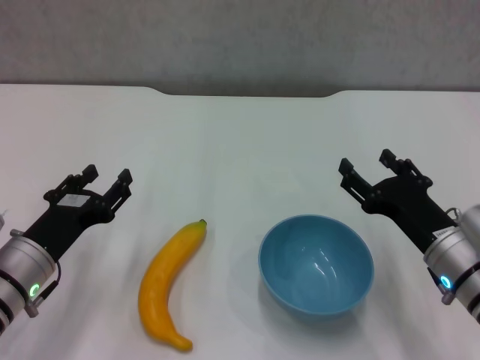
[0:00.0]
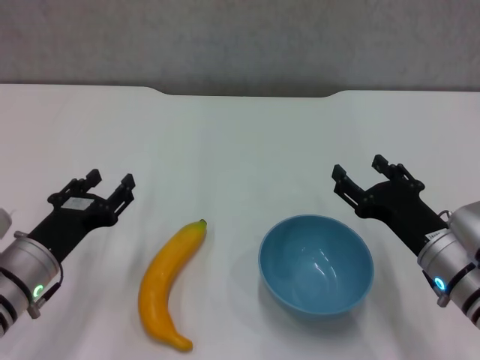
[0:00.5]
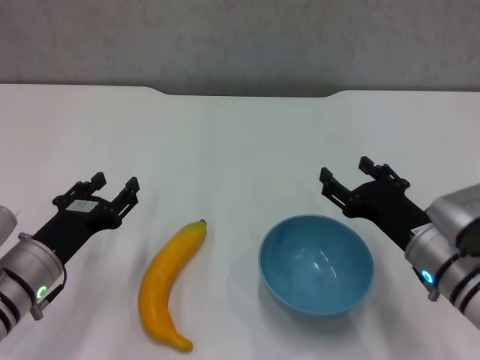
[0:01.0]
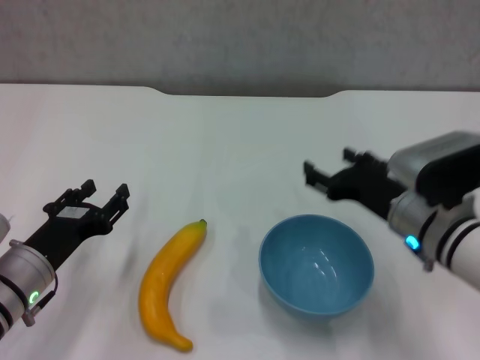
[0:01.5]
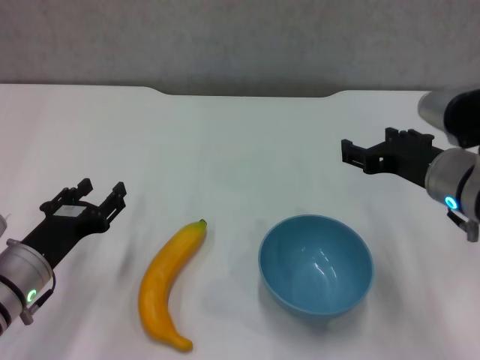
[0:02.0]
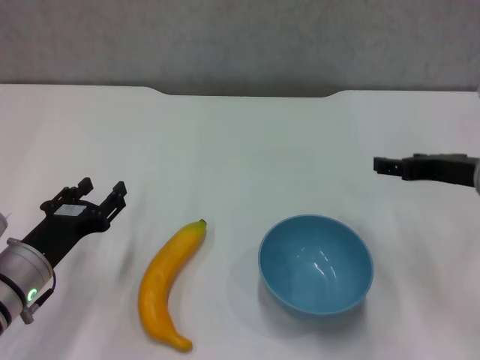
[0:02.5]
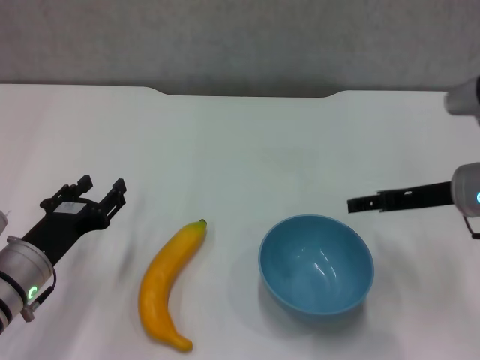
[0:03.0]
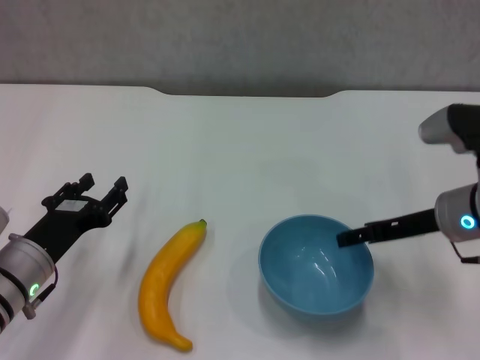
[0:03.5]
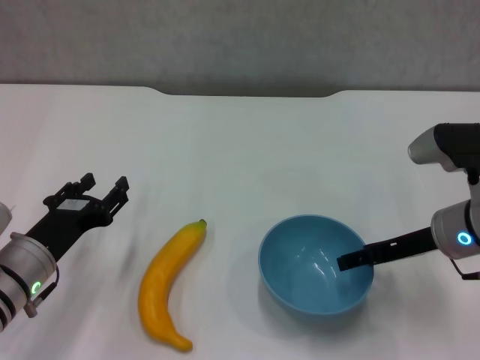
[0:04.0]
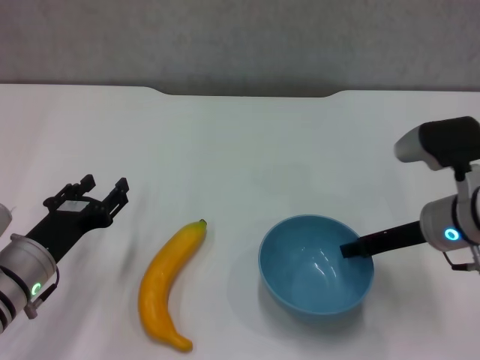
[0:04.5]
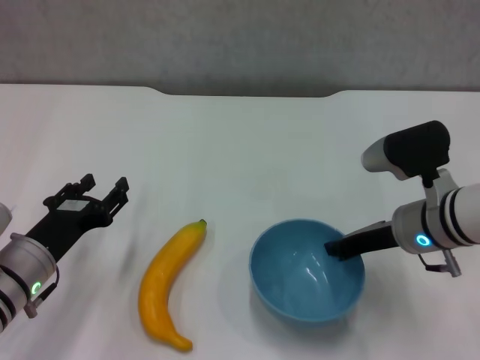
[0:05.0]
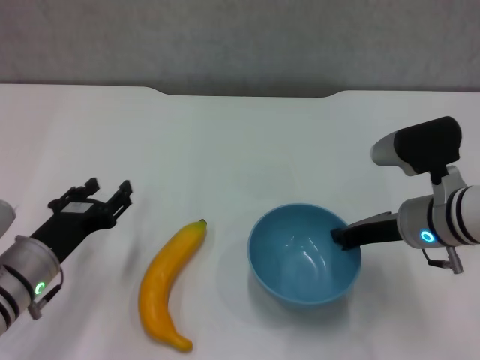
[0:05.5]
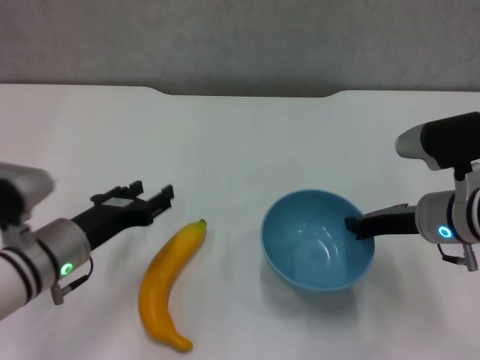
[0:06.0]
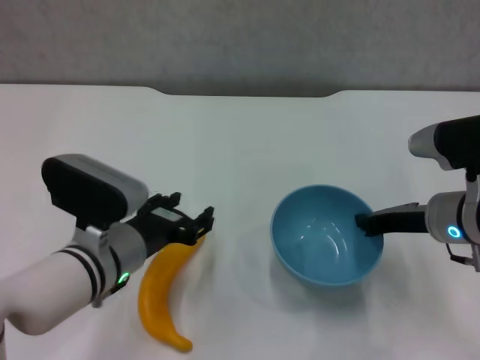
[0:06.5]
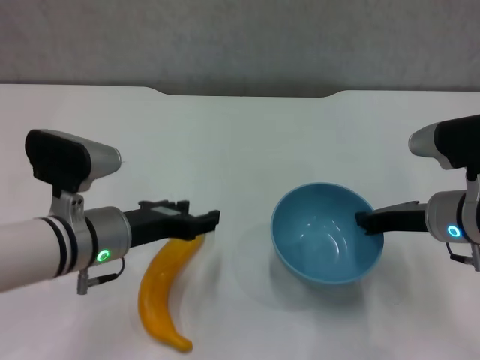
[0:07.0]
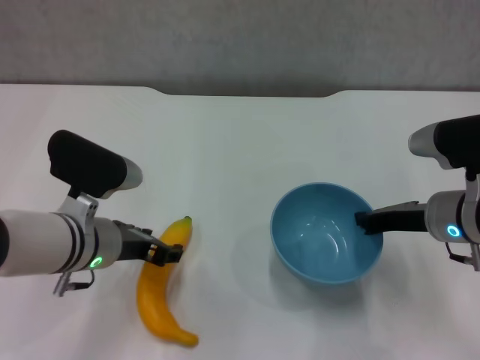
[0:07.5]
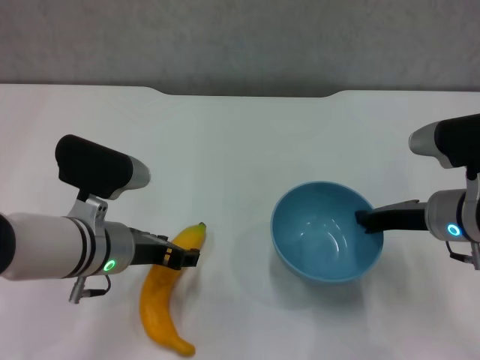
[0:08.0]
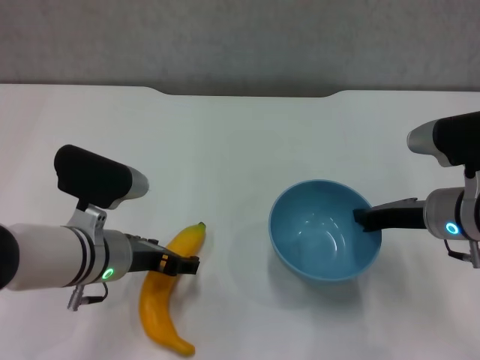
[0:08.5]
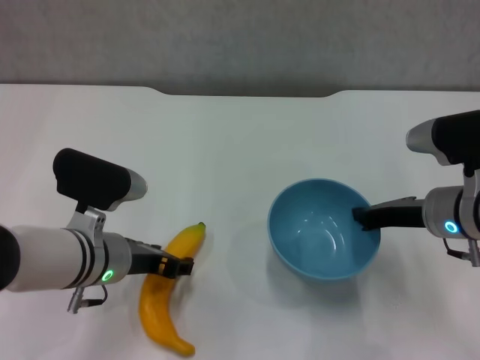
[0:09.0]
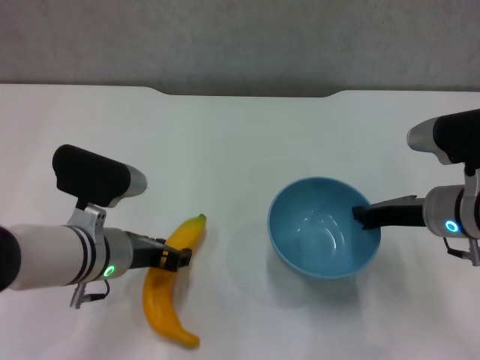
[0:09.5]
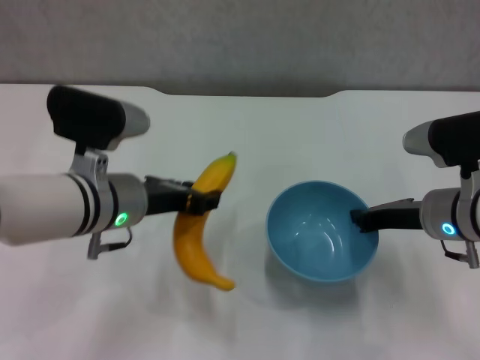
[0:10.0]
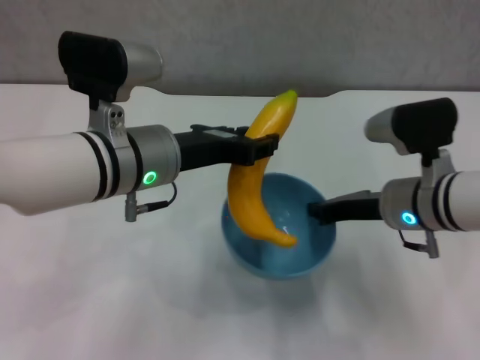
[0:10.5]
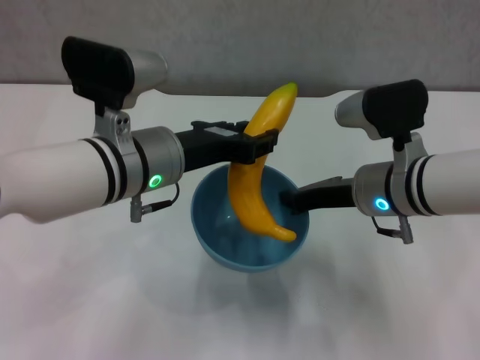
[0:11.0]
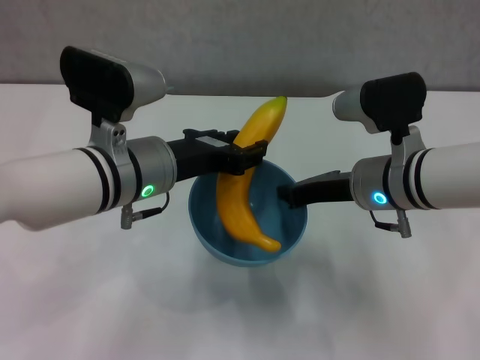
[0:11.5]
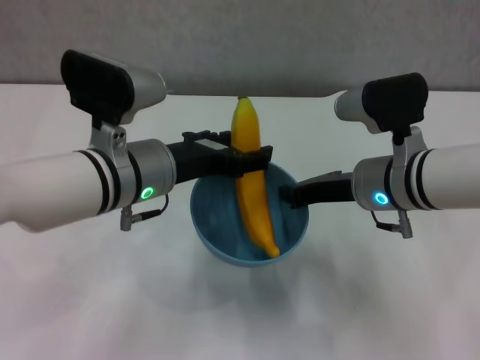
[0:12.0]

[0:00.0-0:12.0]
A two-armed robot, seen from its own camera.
Step, 0:00.0 to 0:05.0: Grasp the blue bowl with right gripper.
Step, 0:05.5 to 0:06.0: Lift the blue bowl with right gripper.
Step, 0:06.5 to 0:09.0: Grasp the banana with left gripper.
0:00.0 to 0:02.0: The right gripper moves upward, about 10 cm.
0:02.0 to 0:04.0: The right gripper shifts by about 5 cm.
0:04.0 to 0:06.0: The right gripper closes its fingers.
0:06.0 to 0:08.0: The left gripper shifts by approximately 5 cm.
0:08.0 to 0:10.0: The left gripper ends up roughly 5 cm from where it was, and closes.
0:10.0 to 0:12.0: The left gripper opens. Meanwhile the right gripper shifts approximately 5 cm to the left.

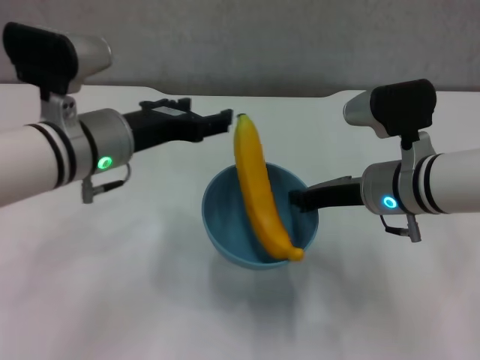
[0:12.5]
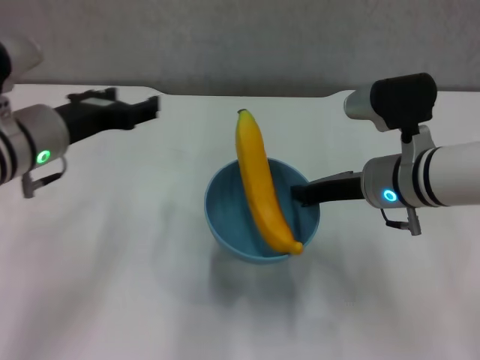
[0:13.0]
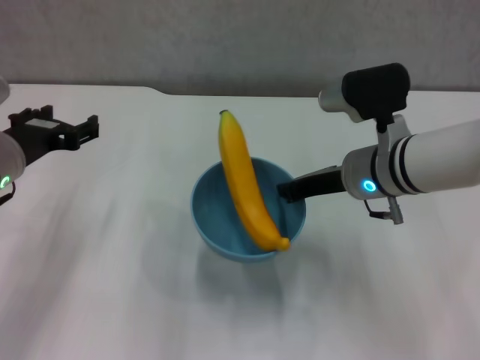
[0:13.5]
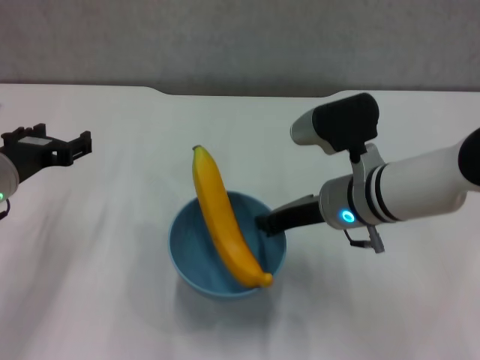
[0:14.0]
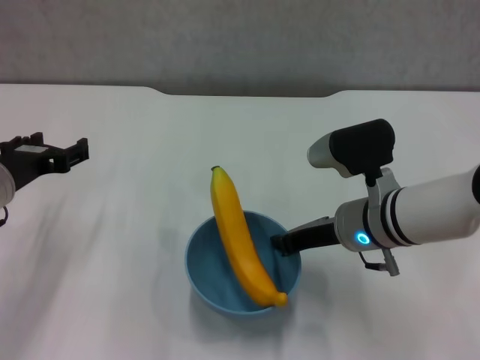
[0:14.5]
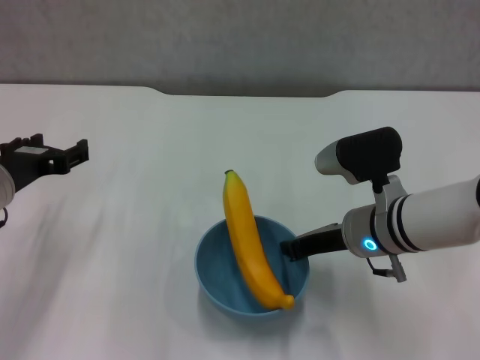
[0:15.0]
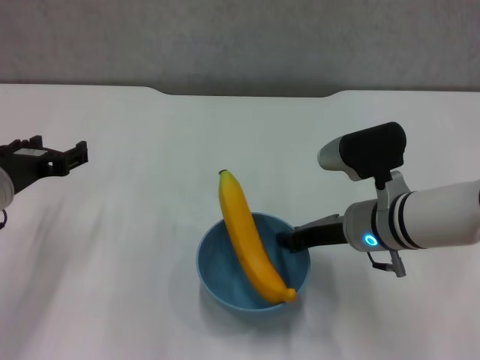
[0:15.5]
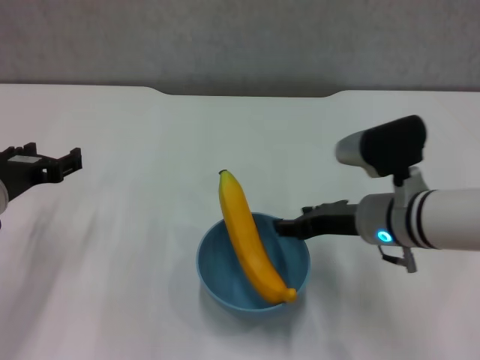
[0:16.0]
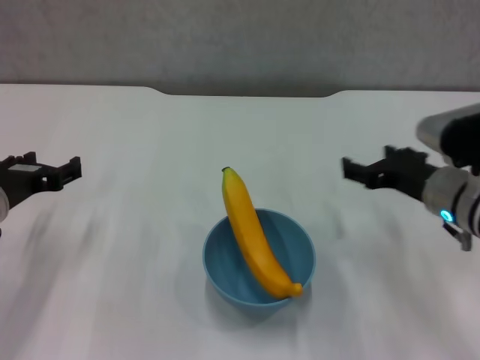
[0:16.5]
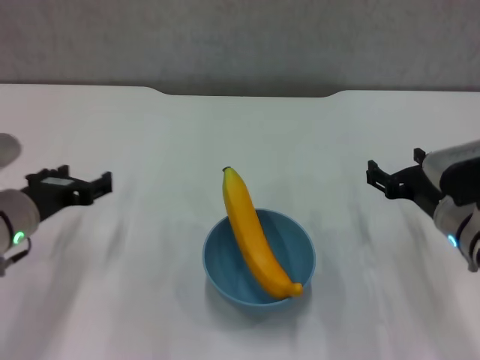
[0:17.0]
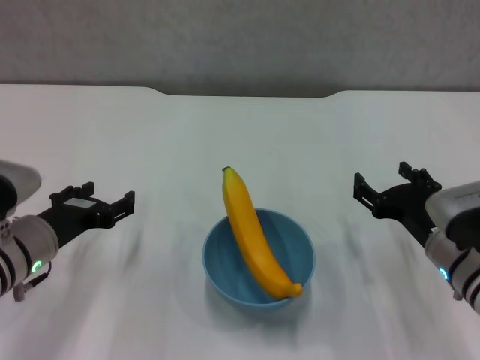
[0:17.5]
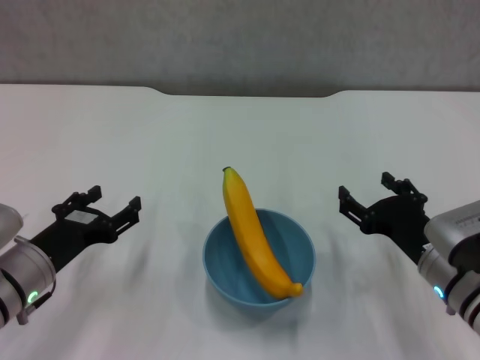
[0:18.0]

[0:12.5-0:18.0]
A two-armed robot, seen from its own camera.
Step, 0:13.0 to 0:16.0: Place the bowl on the table with right gripper.
0:12.5 to 0:14.5: The left gripper is displaced to the left and downward by about 15 cm.
0:14.5 to 0:16.0: The right gripper opens up.
0:16.0 to 0:18.0: The right gripper goes about 10 cm to the right, backward and downward, and opens up. The left gripper moves downward, some 5 cm.
